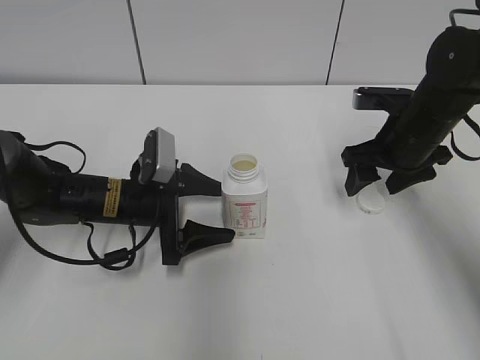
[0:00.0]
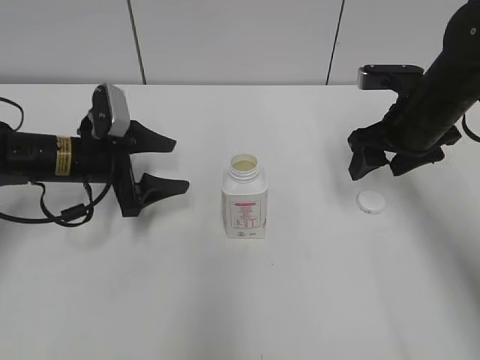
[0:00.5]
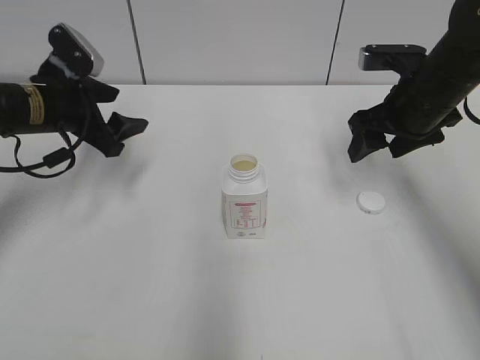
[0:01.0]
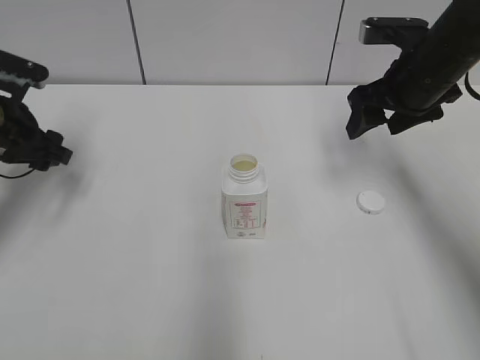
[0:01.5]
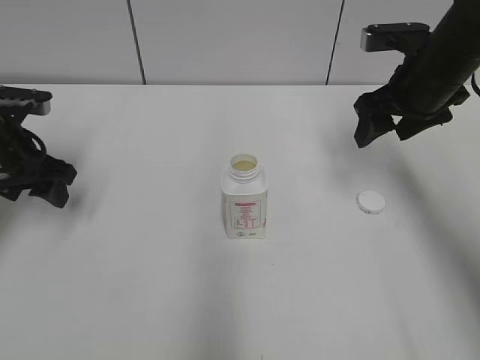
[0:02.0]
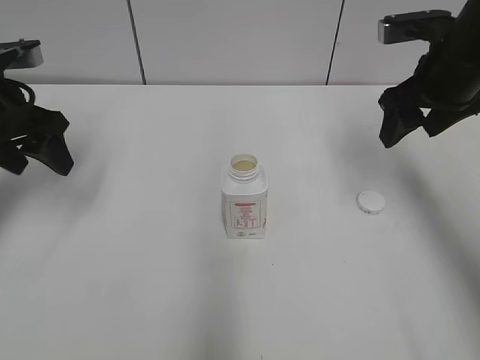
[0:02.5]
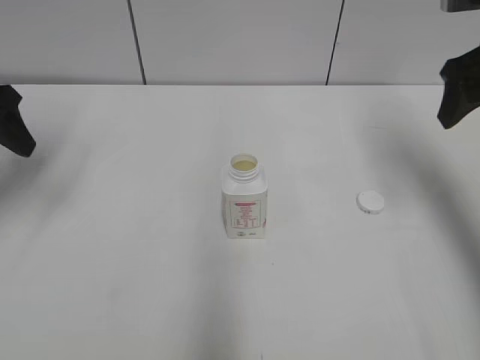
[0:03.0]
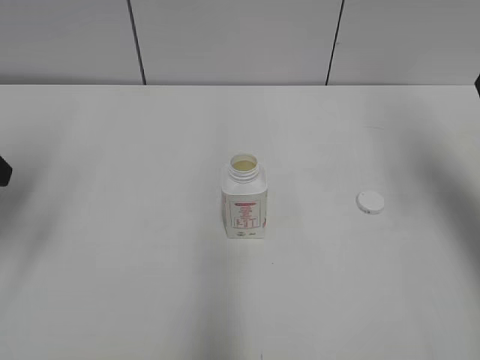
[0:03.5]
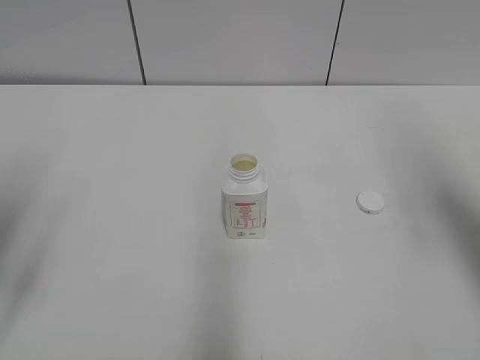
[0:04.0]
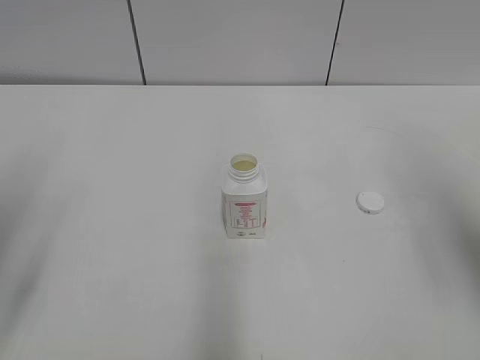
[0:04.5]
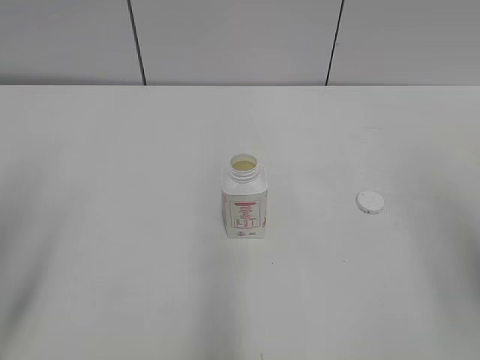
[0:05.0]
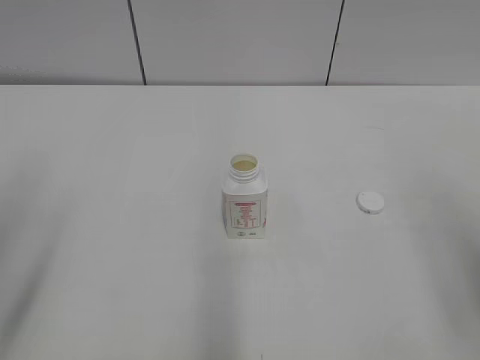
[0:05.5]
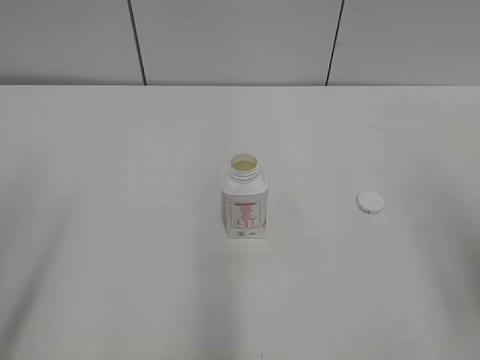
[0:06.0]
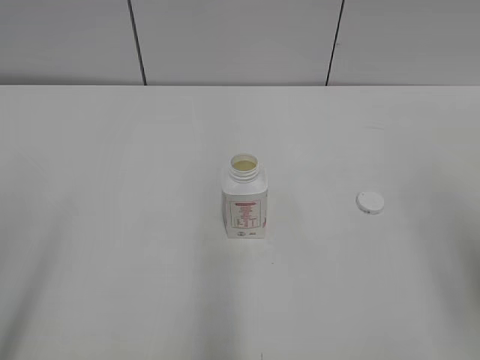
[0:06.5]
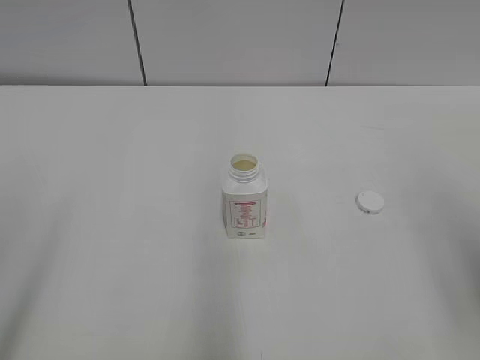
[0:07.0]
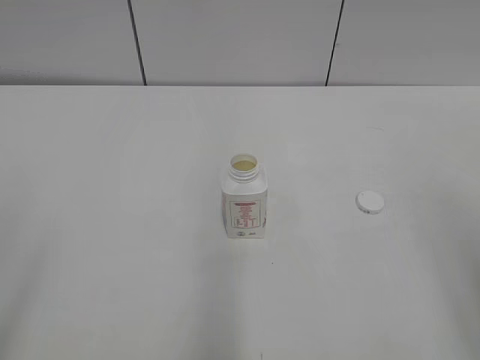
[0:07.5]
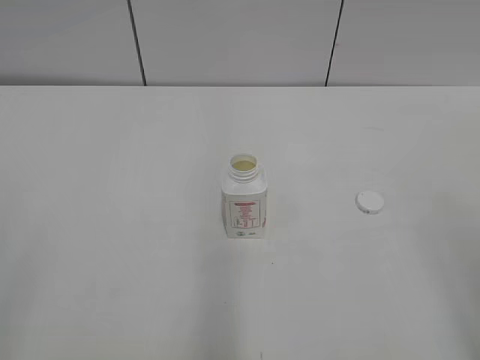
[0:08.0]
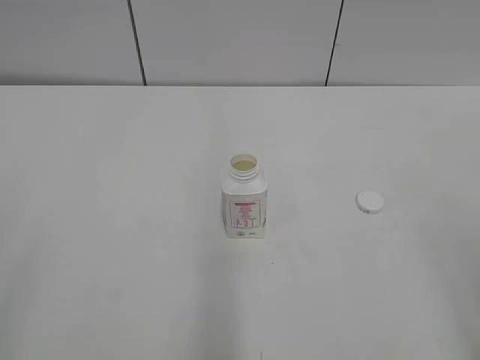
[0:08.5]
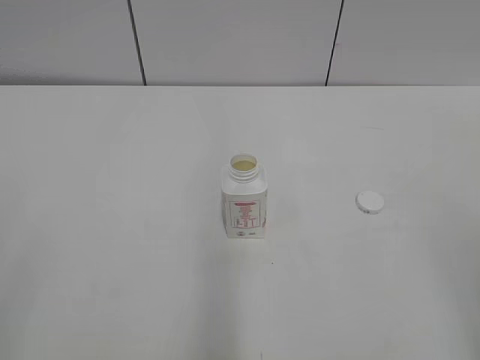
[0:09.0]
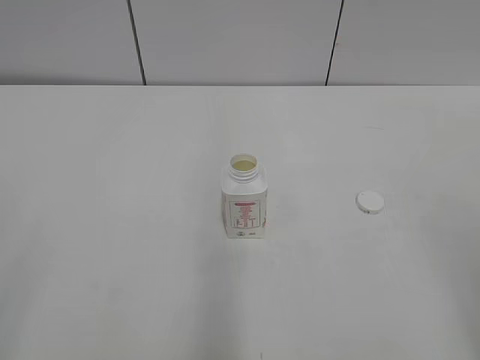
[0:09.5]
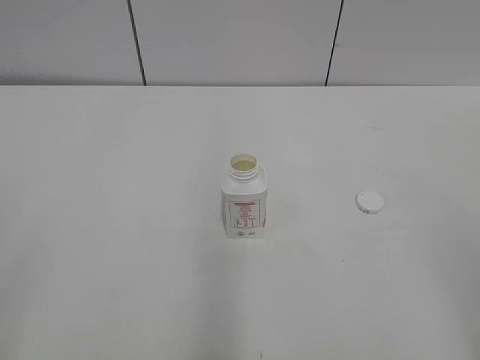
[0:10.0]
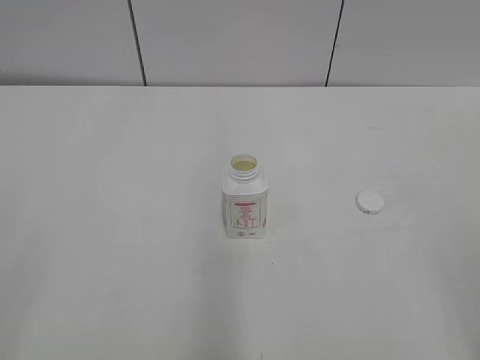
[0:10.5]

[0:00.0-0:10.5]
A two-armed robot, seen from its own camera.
0:00.0 to 0:02.0: The left gripper shifts about 20 cm to the left and upward; the right gripper moves upward, about 5 cm.
0:02.0 to 0:04.0: The right gripper goes approximately 20 cm backward, upward and to the right. The left gripper is displaced backward and upward by roughly 20 cm.
0:04.0 to 0:06.5: The right gripper is displaced backward by approximately 15 cm.

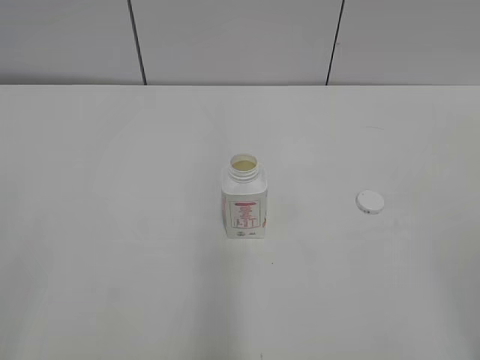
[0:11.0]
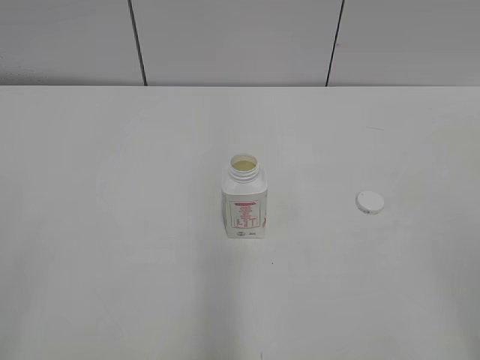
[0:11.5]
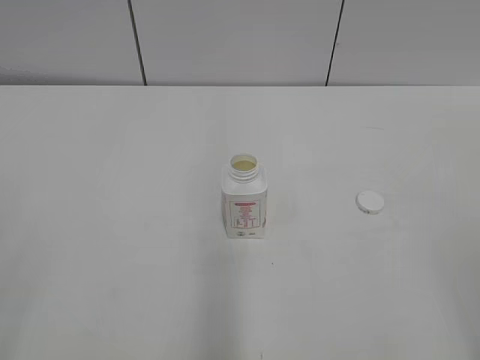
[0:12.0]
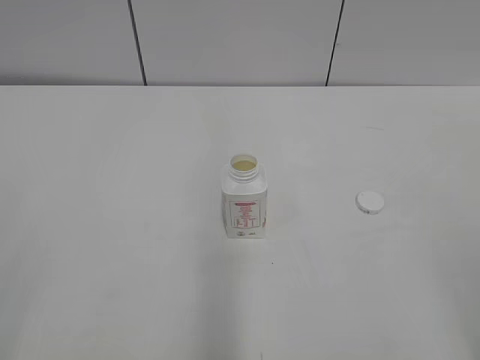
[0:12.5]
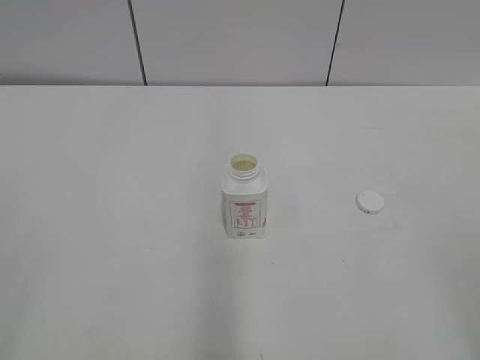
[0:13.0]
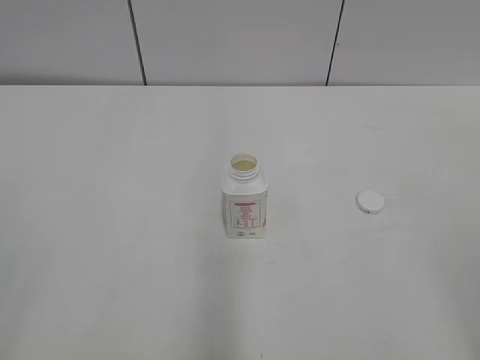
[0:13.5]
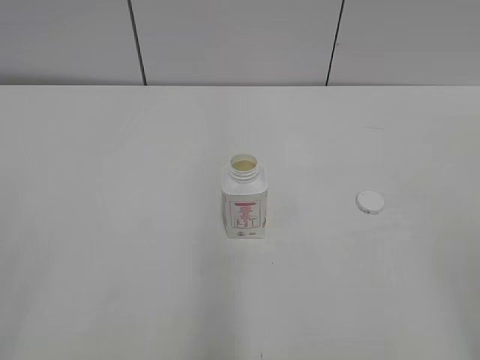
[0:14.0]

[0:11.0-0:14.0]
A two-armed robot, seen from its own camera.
0:11.0 to 0:14.0: The two grippers keep their place.

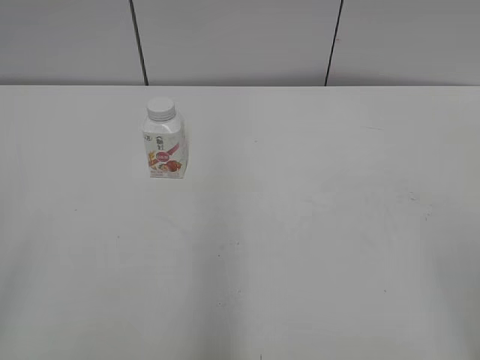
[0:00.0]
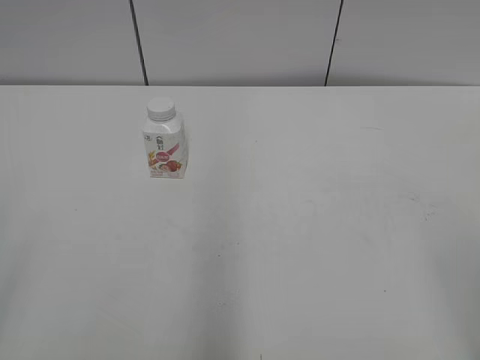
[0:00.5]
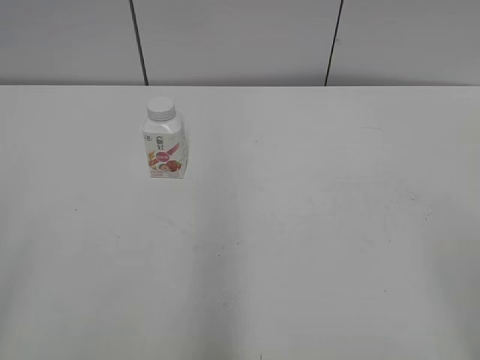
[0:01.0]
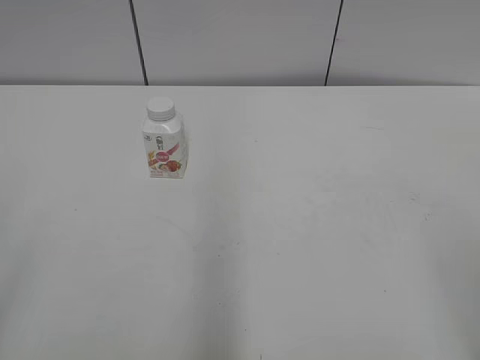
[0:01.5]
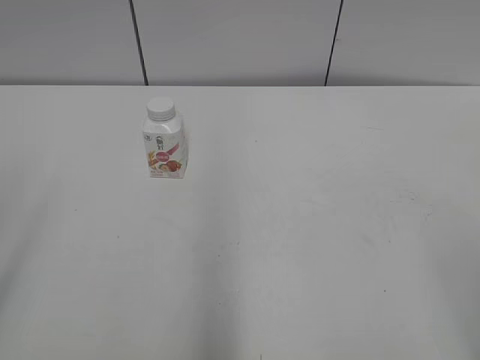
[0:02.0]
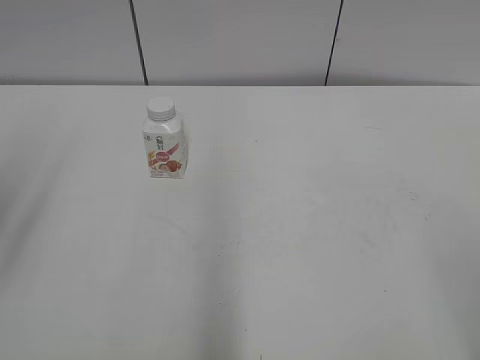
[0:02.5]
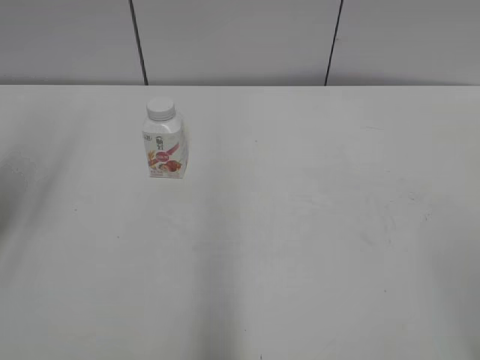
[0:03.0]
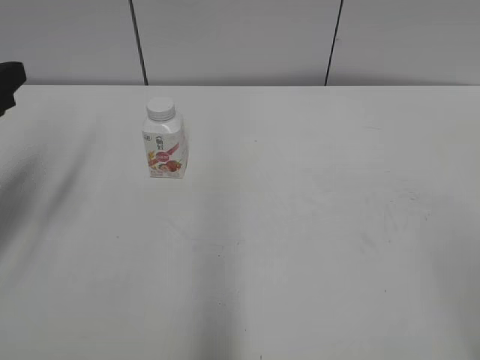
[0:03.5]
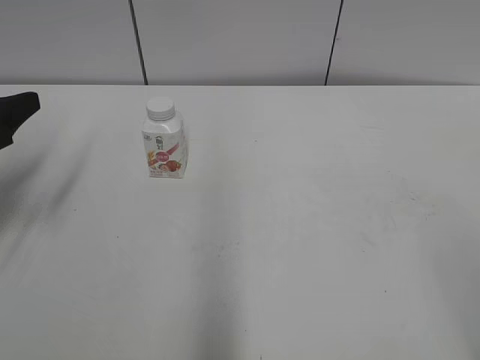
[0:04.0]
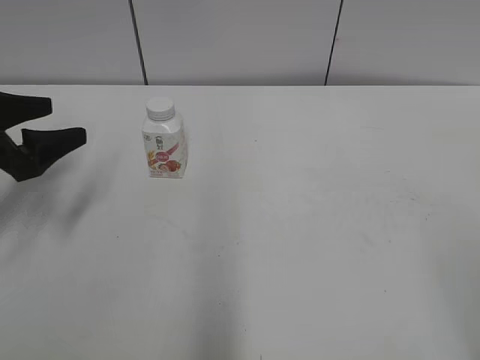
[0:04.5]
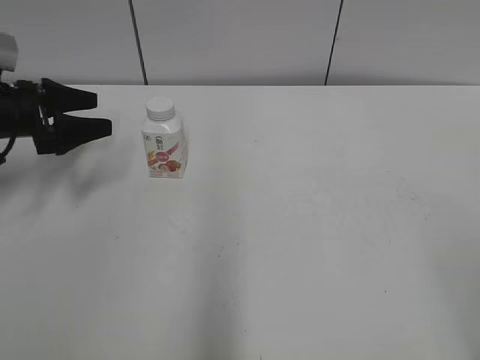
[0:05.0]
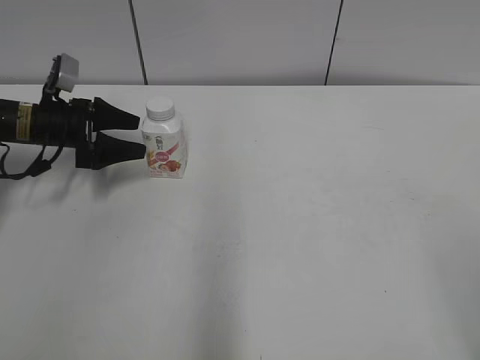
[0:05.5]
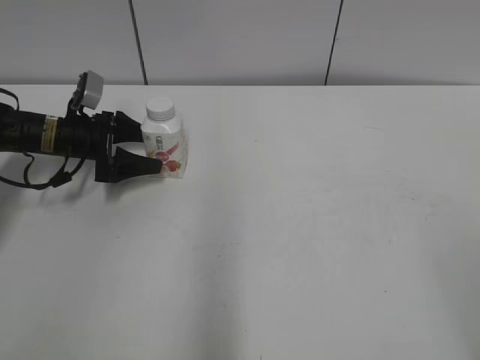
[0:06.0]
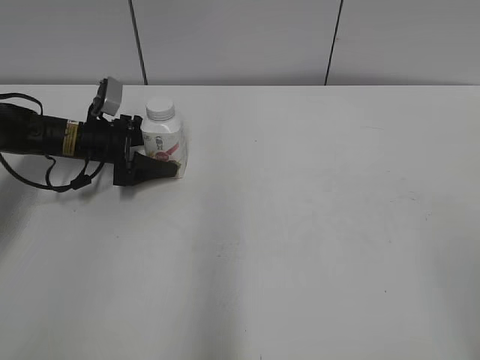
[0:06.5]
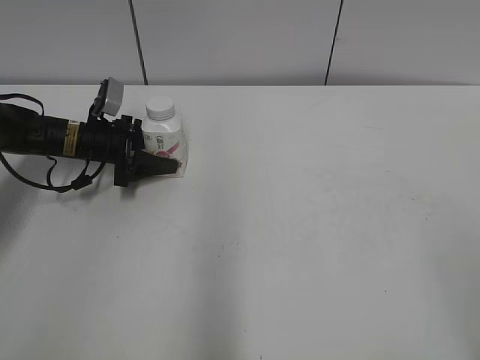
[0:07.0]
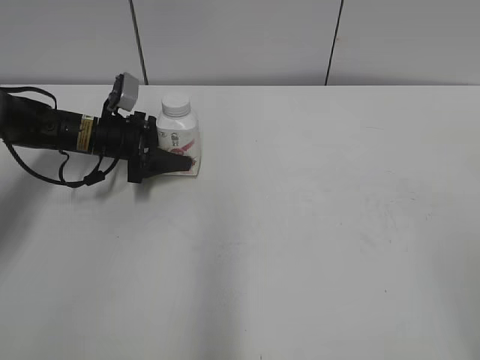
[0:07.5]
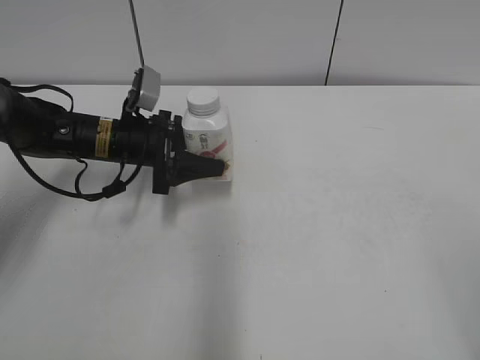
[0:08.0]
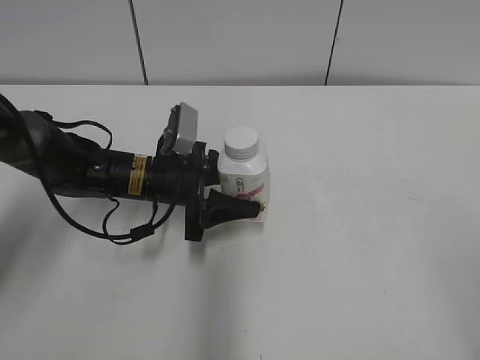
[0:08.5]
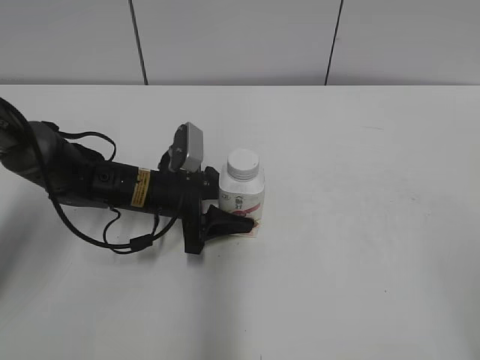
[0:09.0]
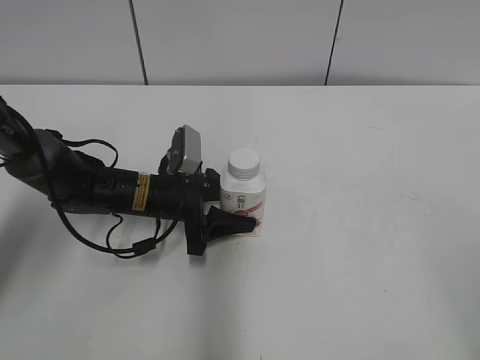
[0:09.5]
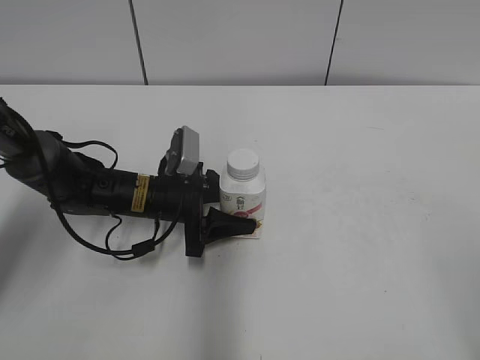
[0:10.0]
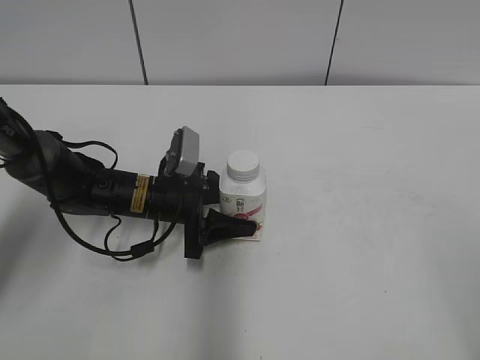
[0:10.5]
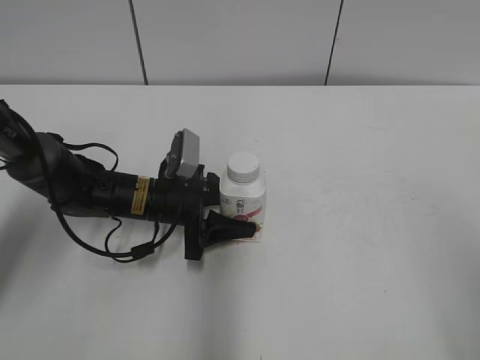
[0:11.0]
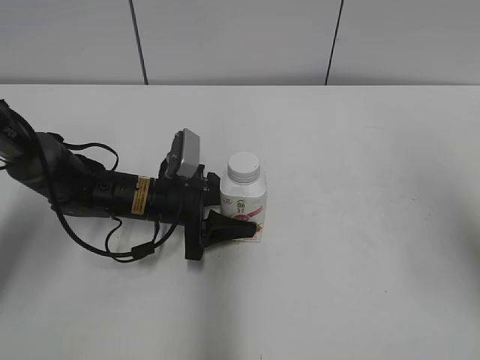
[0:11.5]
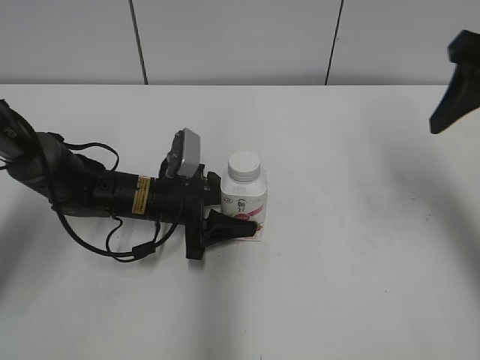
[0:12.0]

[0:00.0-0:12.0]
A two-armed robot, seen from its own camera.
Step, 0:00.0 to 0:07.0: Grab the Yili Changqing with the left hand.
Step, 0:07.5 to 0:10.5: Move the Yili Changqing from left to right.
0:02.0 to 0:04.0: The left gripper travels forward and downward by approximately 25 cm.
0:04.0 to 0:06.0: The left gripper travels forward and downward by roughly 20 cm, and opens.
0:06.0 to 0:08.0: The left gripper is displaced to the right by some 10 cm, and closes its fingers.
0:08.0 to 0:10.0: The left gripper shifts some 5 cm downward.
0:10.0 to 0:12.0: The right gripper shifts some 30 cm forward.
